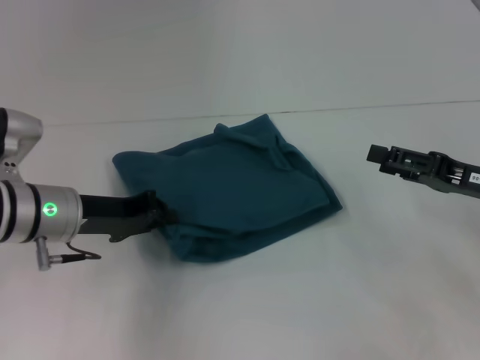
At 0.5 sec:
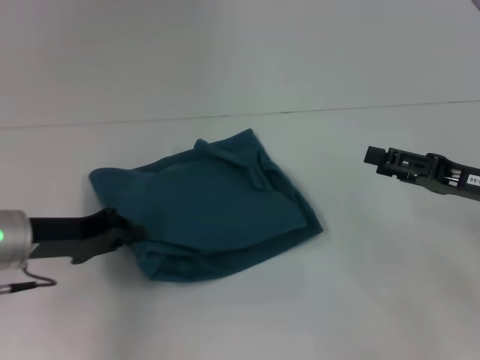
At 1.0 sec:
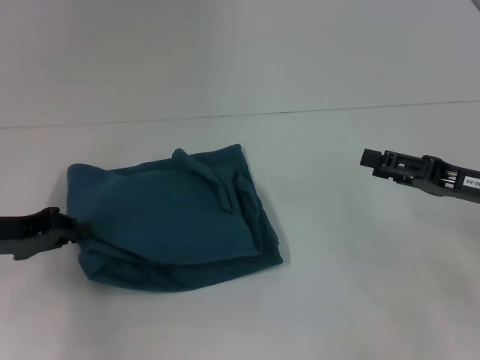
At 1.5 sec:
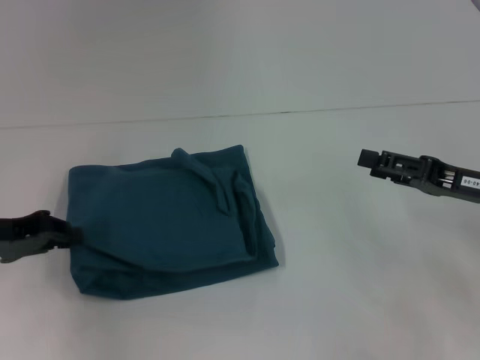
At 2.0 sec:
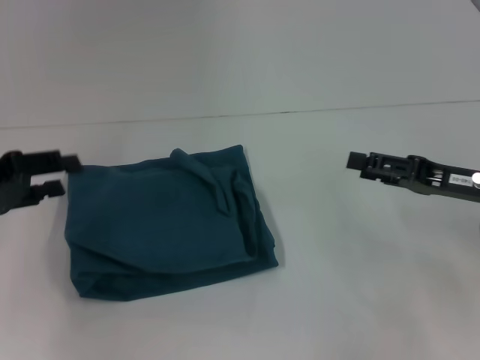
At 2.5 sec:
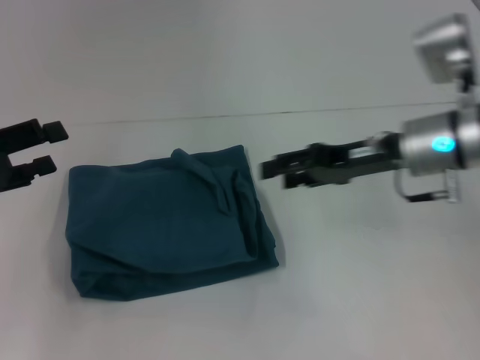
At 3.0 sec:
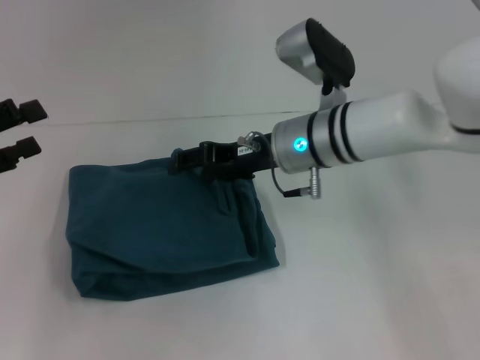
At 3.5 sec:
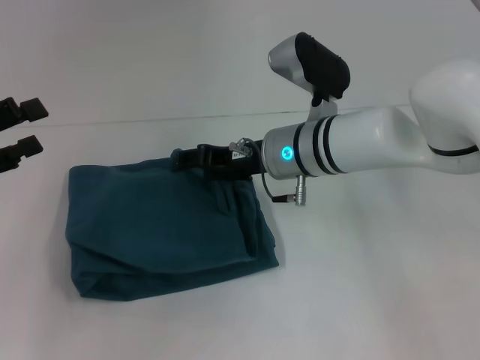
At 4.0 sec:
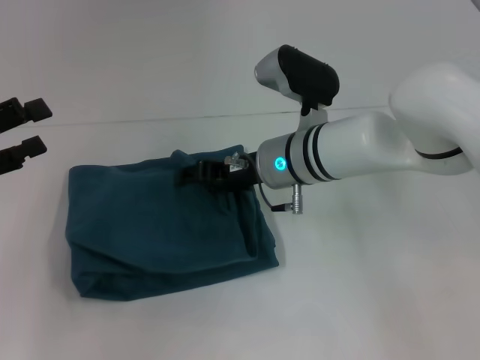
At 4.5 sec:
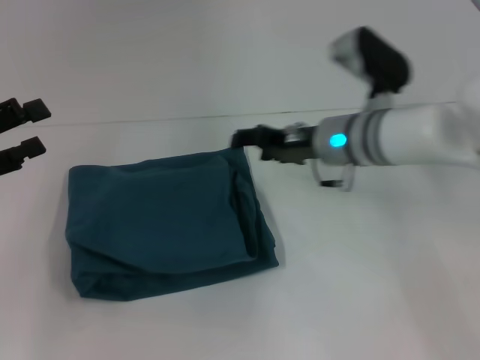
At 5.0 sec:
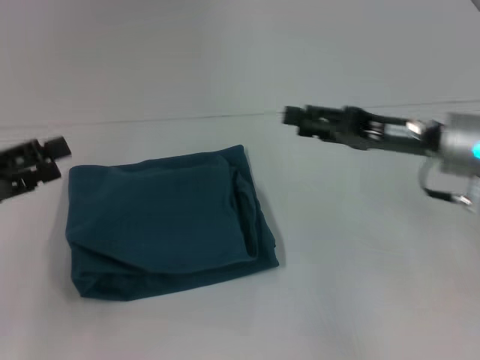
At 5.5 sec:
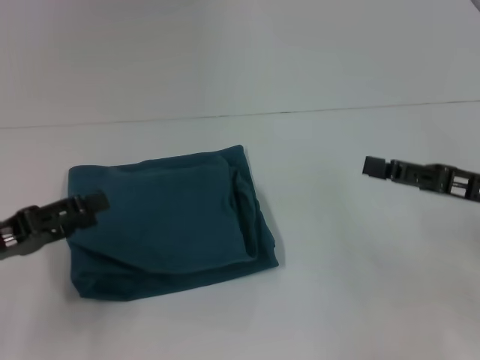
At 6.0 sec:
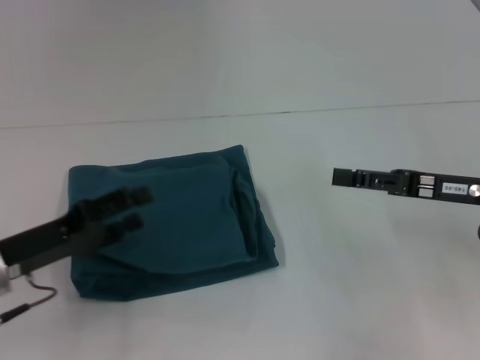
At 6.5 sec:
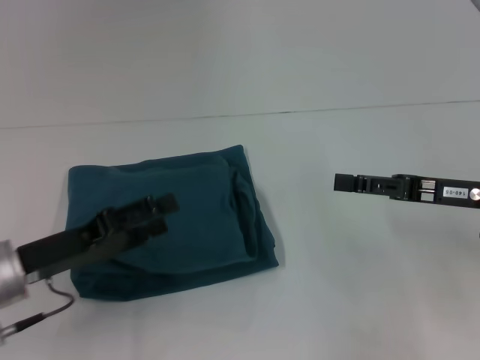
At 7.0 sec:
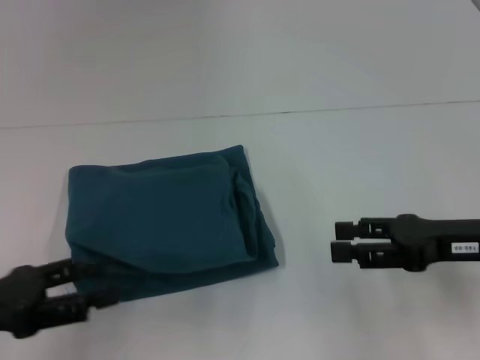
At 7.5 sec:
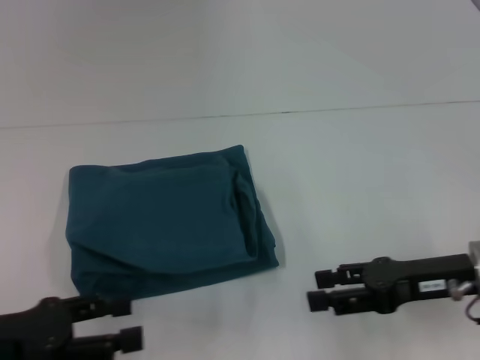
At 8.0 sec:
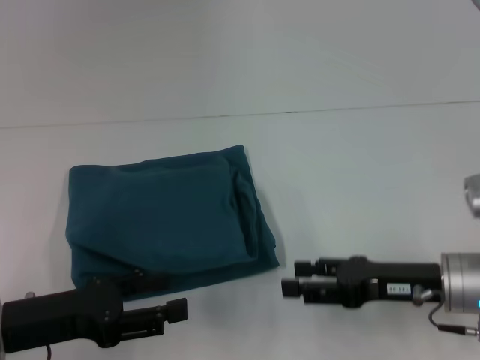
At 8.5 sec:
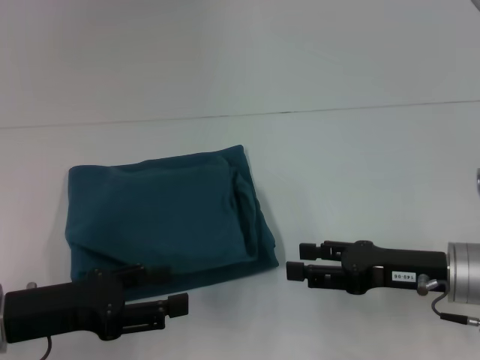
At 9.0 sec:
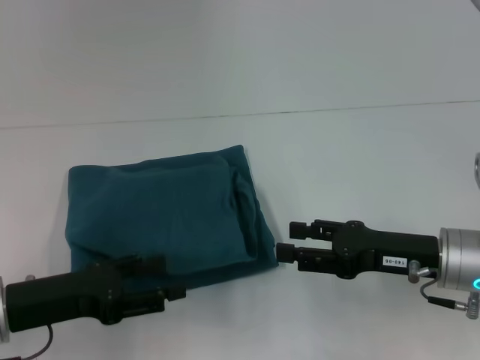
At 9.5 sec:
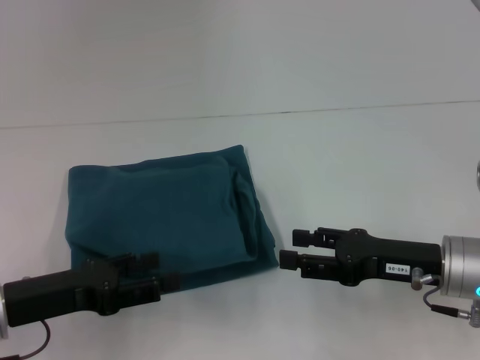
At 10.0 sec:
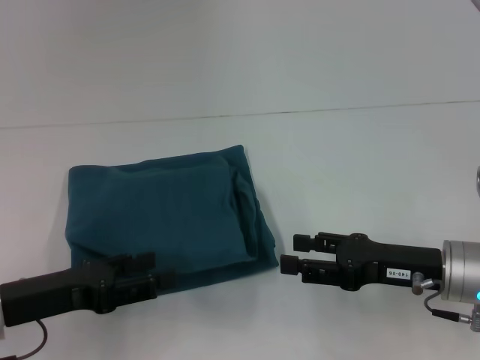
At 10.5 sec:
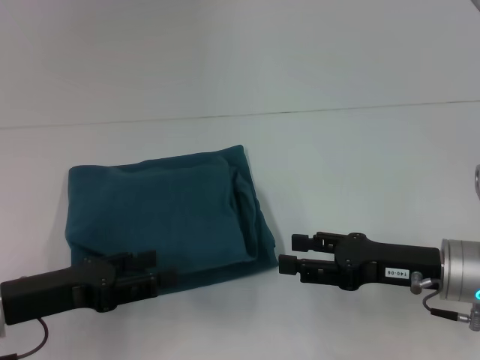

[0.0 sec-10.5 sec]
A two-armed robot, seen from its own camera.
0.0 sec to 2.0 sec: The left gripper is displaced to the left and upward by about 15 cm.
2.0 sec to 4.0 sec: The right gripper is displaced to the left by roughly 25 cm. The left gripper opens up.
4.0 sec to 6.5 sec: The right gripper shifts some 25 cm to the right and backward; the left gripper travels downward and to the right by about 15 cm.
6.5 sec to 8.5 sec: The right gripper travels downward by roughly 5 cm.
8.5 sec to 10.5 sec: The grippers move only a little.
